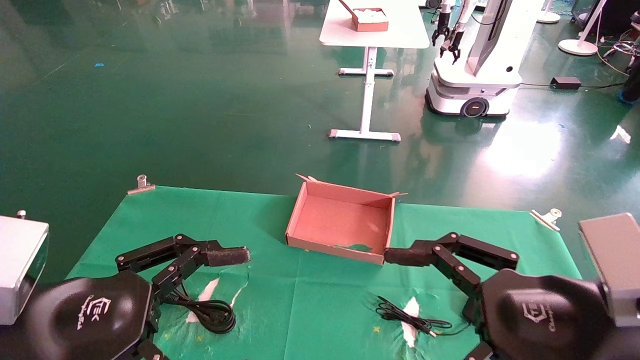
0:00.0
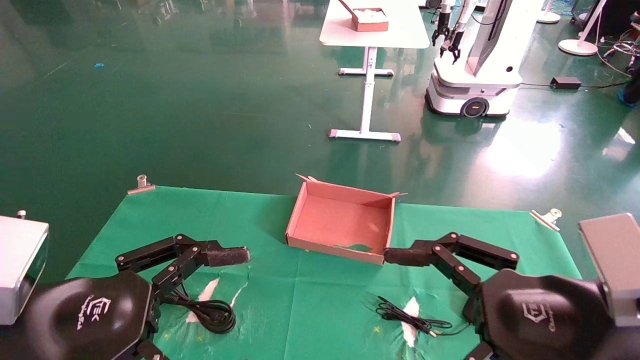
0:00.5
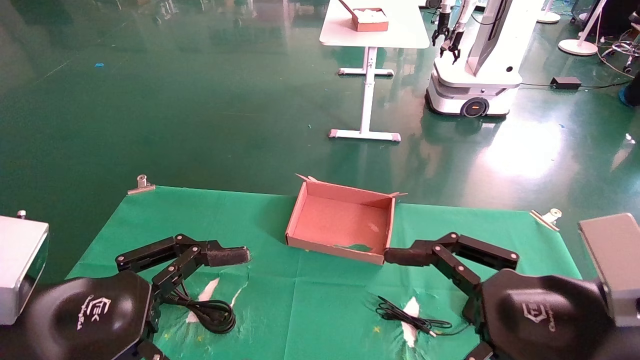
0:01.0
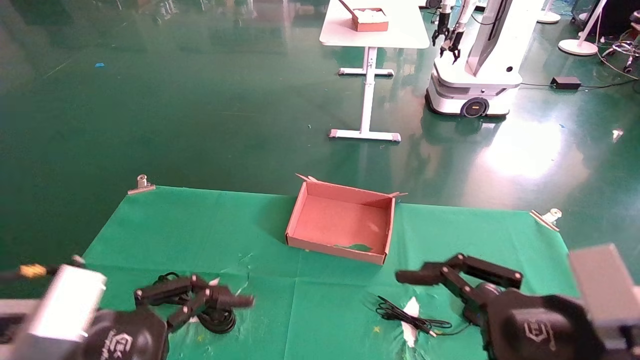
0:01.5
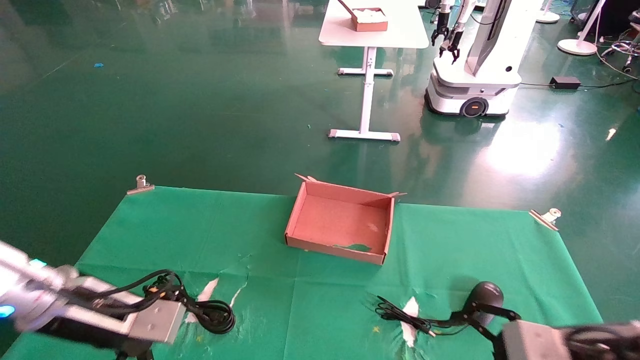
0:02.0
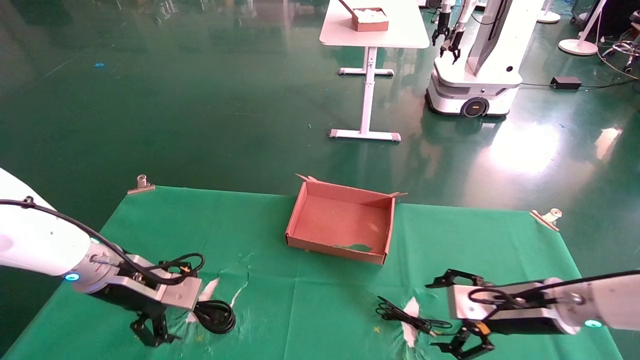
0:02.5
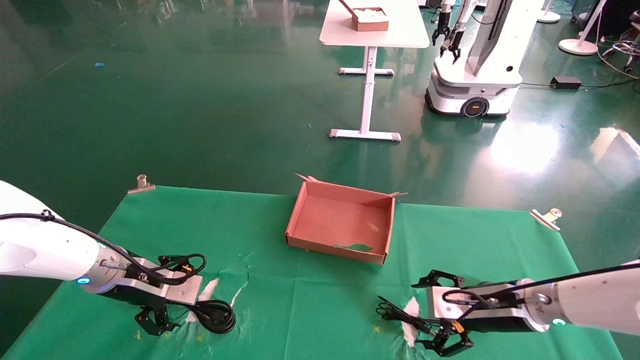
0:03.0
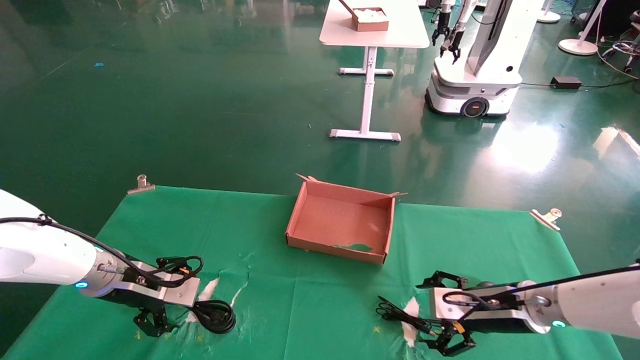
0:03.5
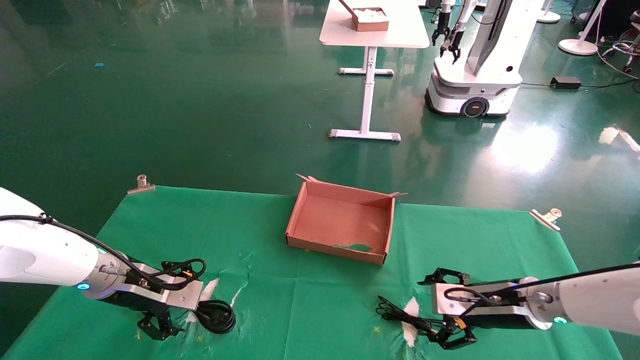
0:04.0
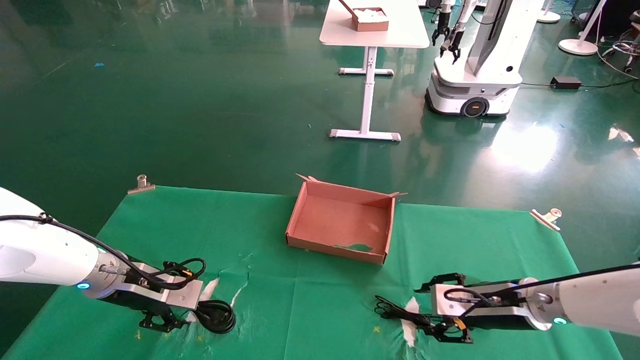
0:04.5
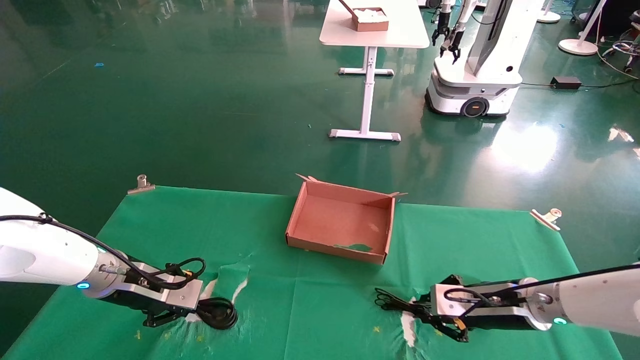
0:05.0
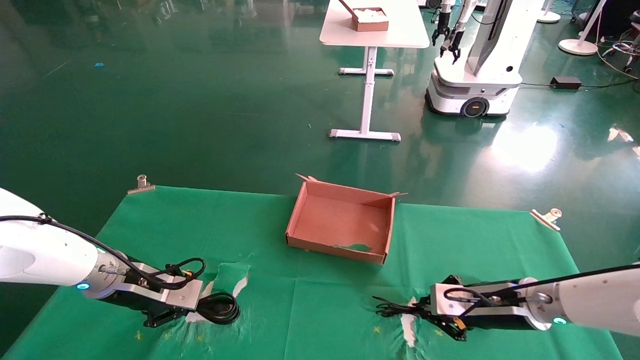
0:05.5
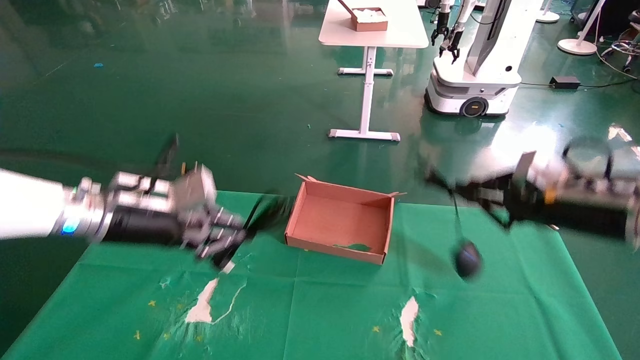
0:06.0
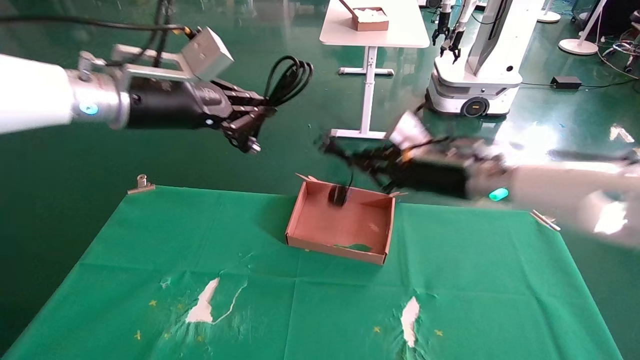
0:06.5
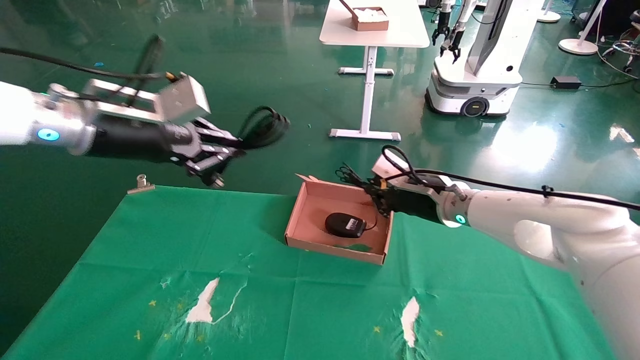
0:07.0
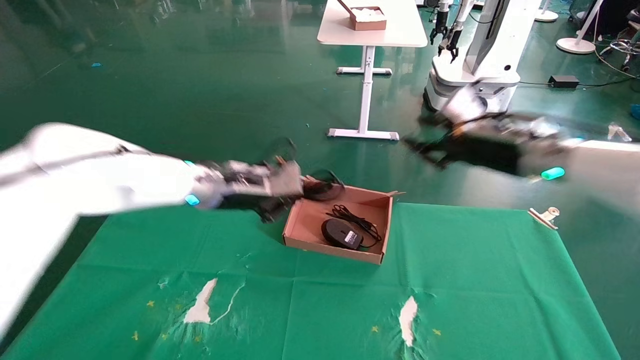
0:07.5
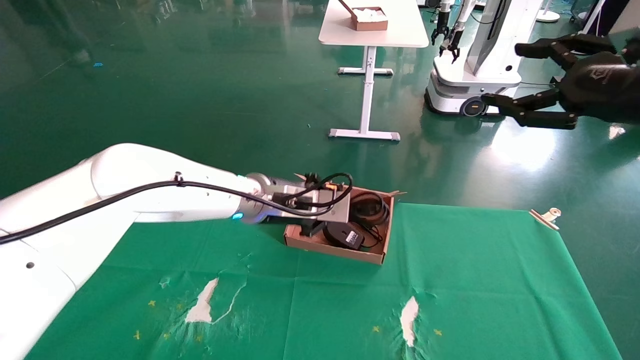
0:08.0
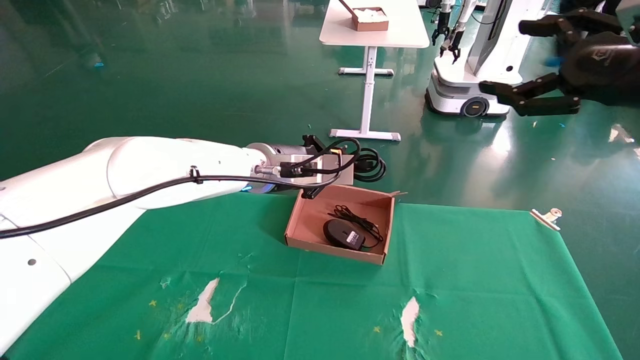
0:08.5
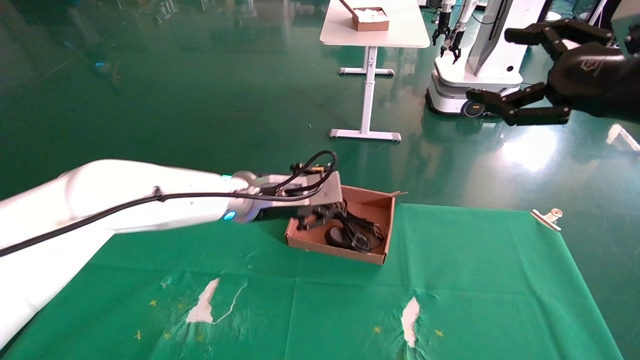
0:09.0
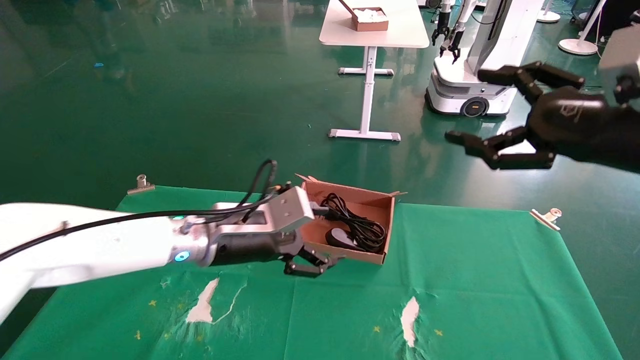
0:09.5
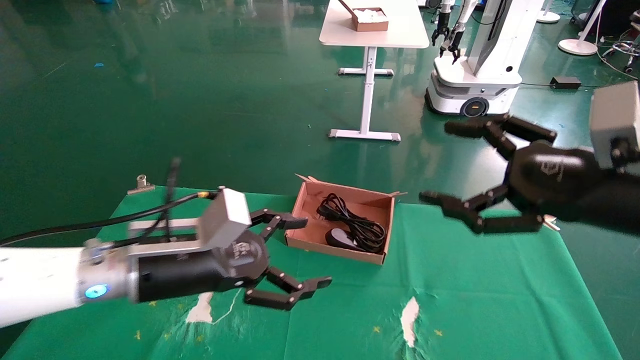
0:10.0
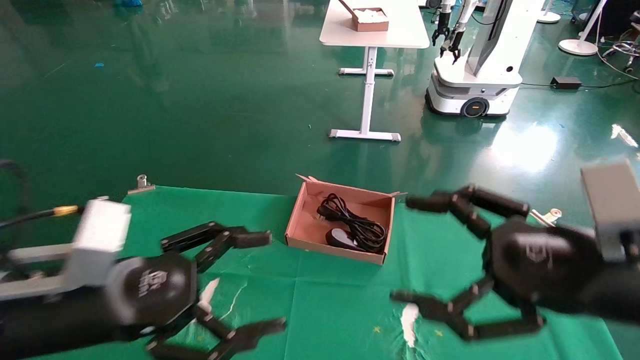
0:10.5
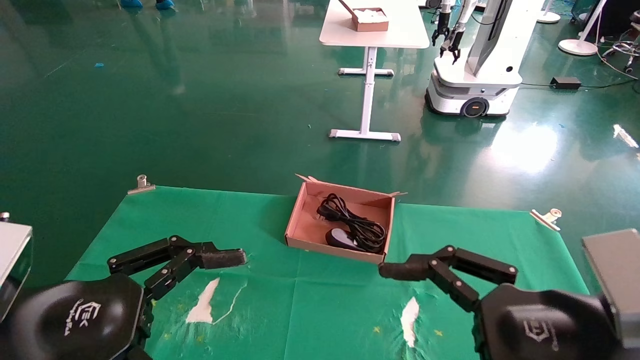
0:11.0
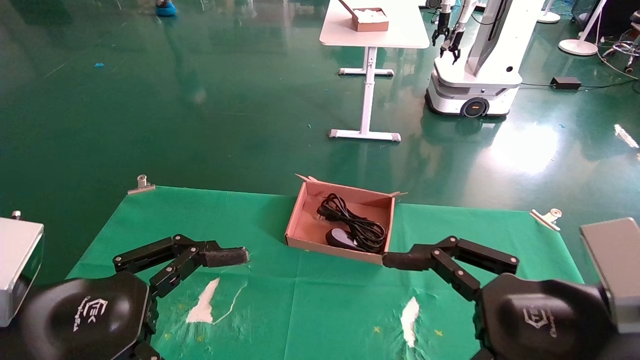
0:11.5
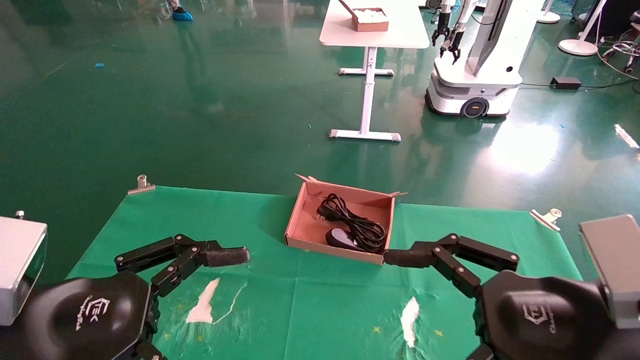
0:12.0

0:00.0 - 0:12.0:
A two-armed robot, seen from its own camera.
Step, 0:02.0 - 0:05.0: Grab and lift both the mouse and power cord from the accessory packaging area at the same time.
Step, 0:05.5 - 0:09.0: Place the mouse and power cord into the box.
0:00.0 - 0:02.0: The right gripper is displaced forward, downward and to the right by roughly 15 cm. The left gripper moves forward, about 15 cm.
0:02.0 - 0:04.0: Both grippers travel together forward, about 10 cm.
0:04.0 - 0:06.0: The grippers both shift upward by approximately 15 cm. The right gripper closes its fingers; the left gripper closes up.
0:06.0 - 0:08.0: The right gripper heads upward and backward, covering some 15 cm, reaches roughly 15 cm to the left, then returns, and opens. The left gripper goes roughly 15 cm to the right.
0:08.0 - 0:10.0: The right gripper moves downward, to the left and backward, some 15 cm. Meanwhile the left gripper is displaced backward, to the left and downward by about 20 cm, and opens.
0:10.0 - 0:12.0: The right gripper heads backward, downward and to the left, covering approximately 10 cm. The left gripper shifts roughly 15 cm backward and to the left.
